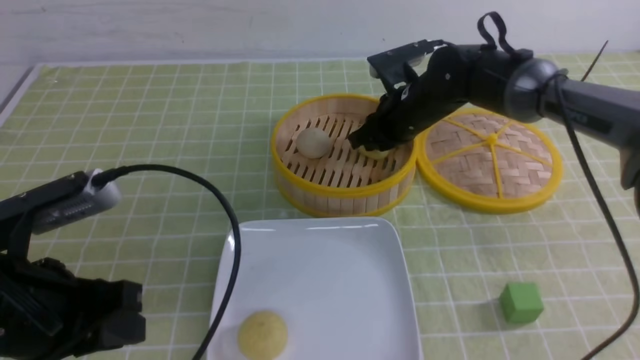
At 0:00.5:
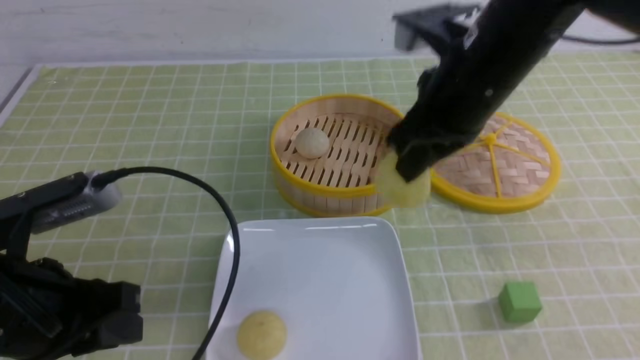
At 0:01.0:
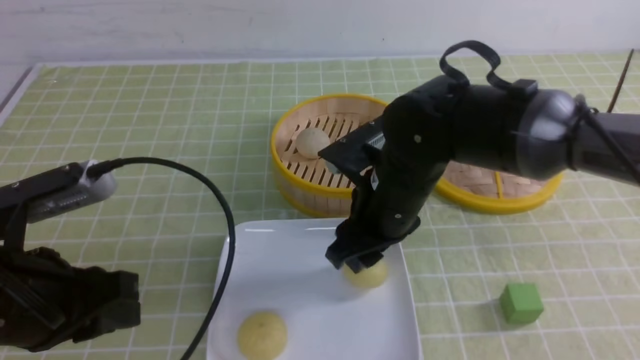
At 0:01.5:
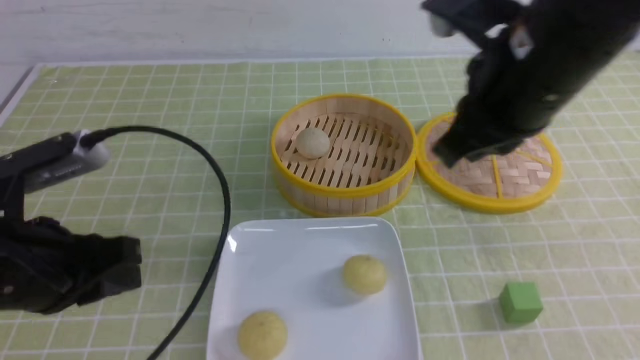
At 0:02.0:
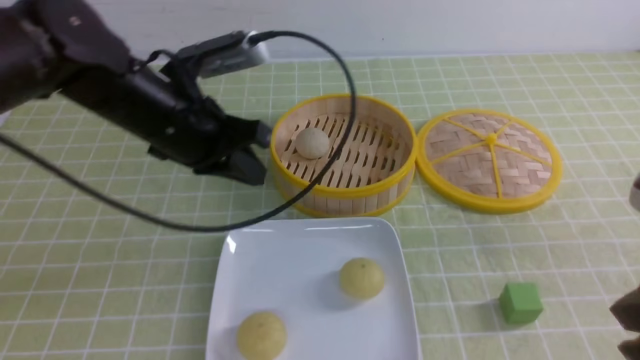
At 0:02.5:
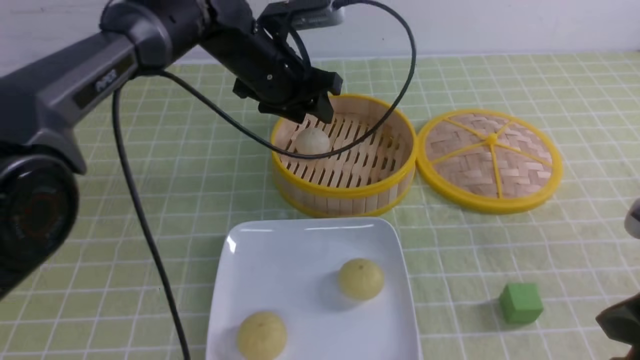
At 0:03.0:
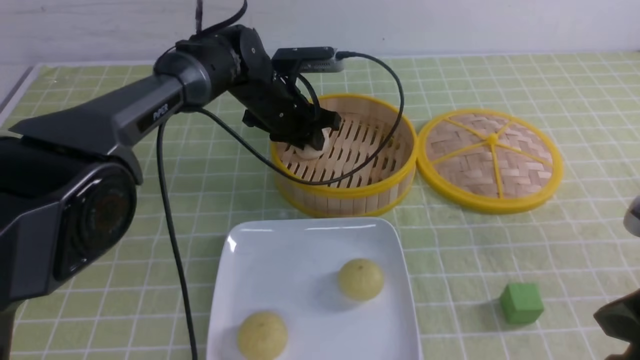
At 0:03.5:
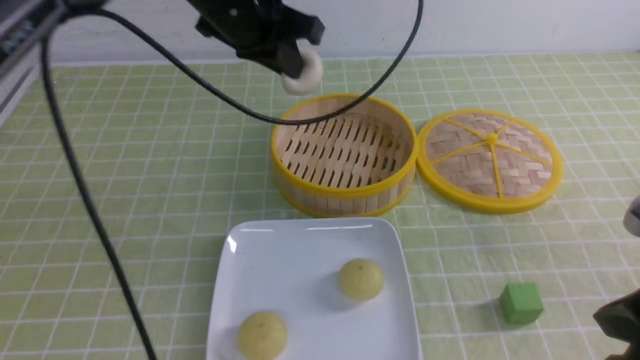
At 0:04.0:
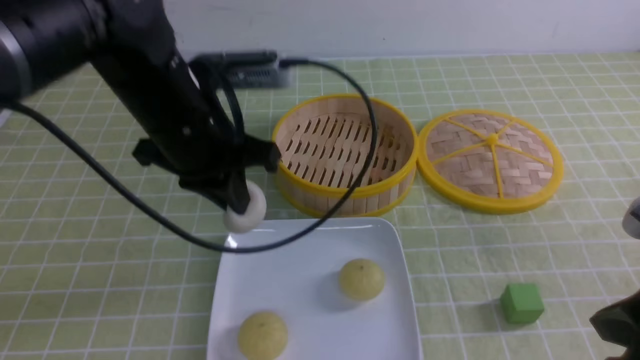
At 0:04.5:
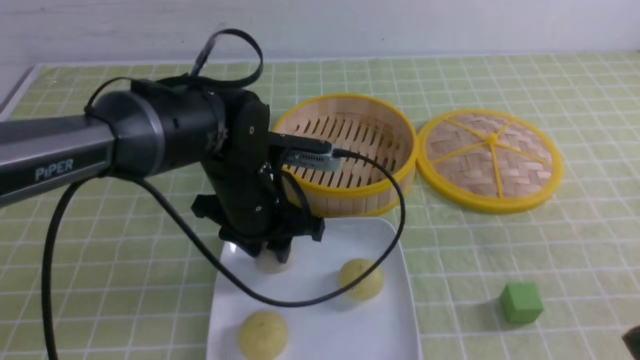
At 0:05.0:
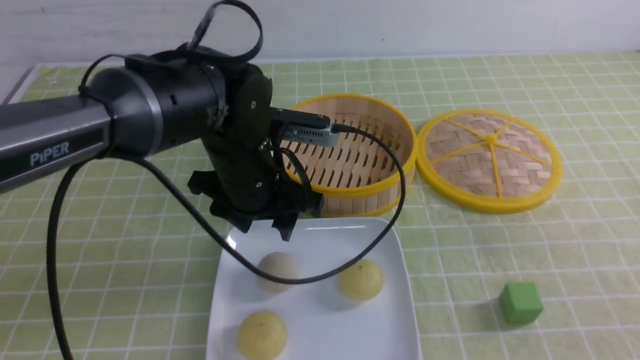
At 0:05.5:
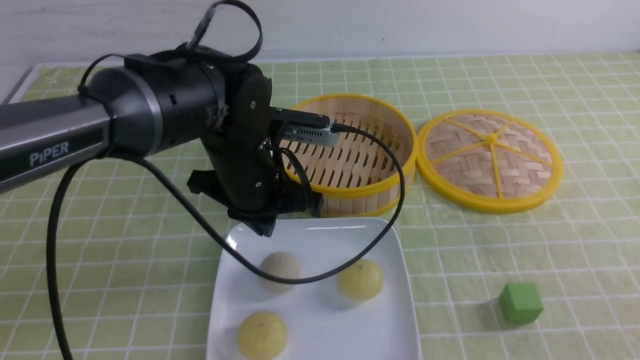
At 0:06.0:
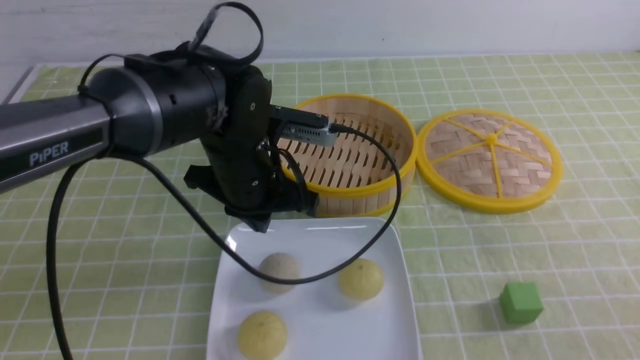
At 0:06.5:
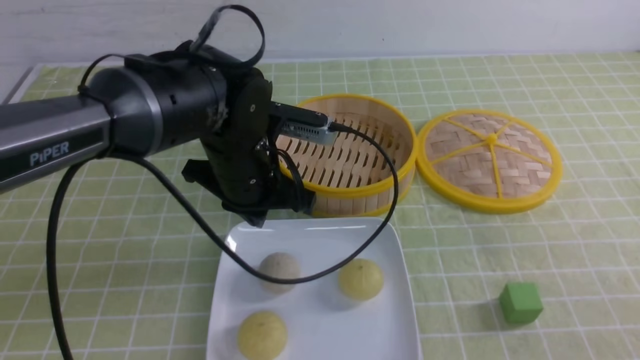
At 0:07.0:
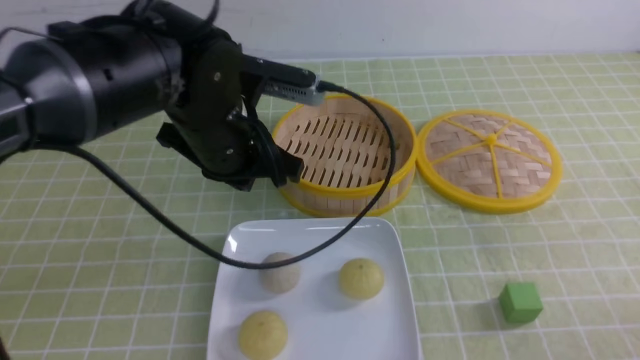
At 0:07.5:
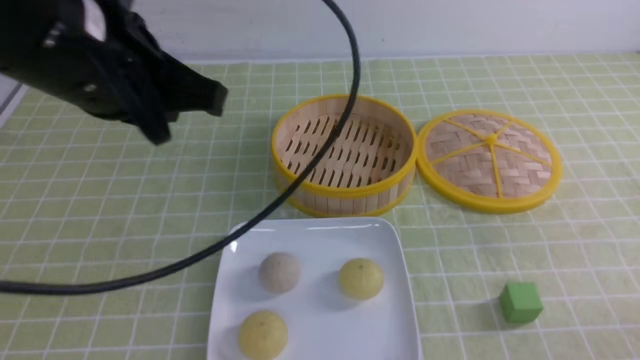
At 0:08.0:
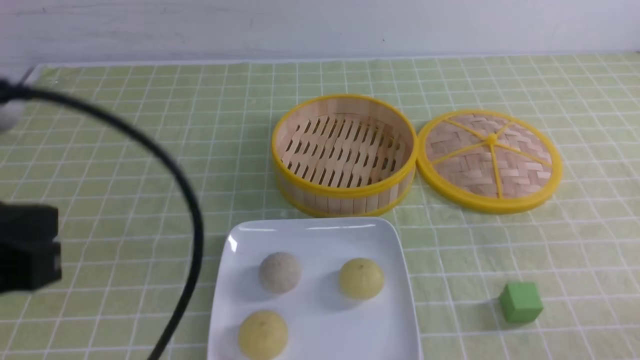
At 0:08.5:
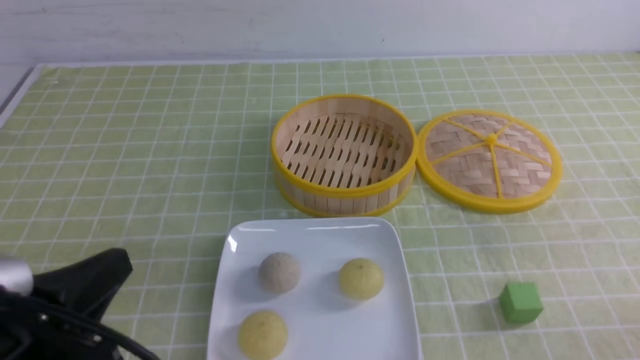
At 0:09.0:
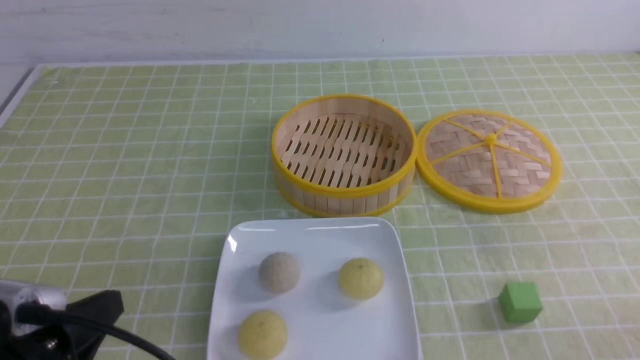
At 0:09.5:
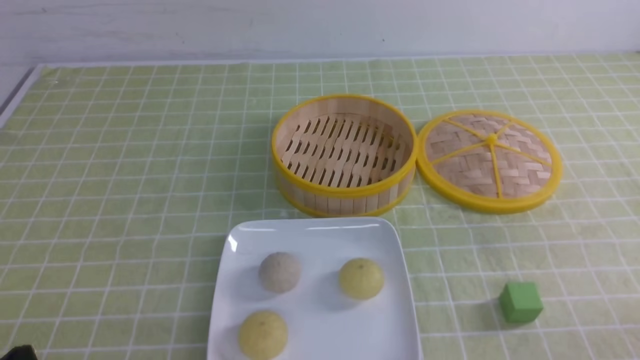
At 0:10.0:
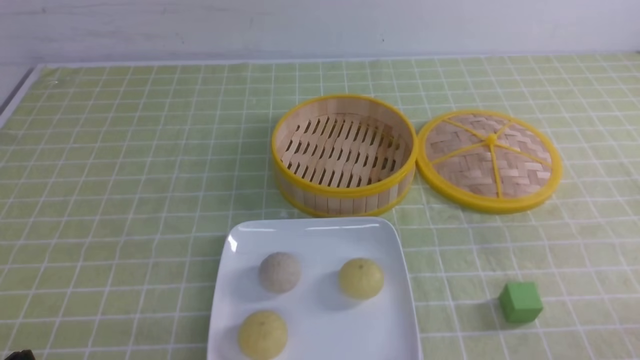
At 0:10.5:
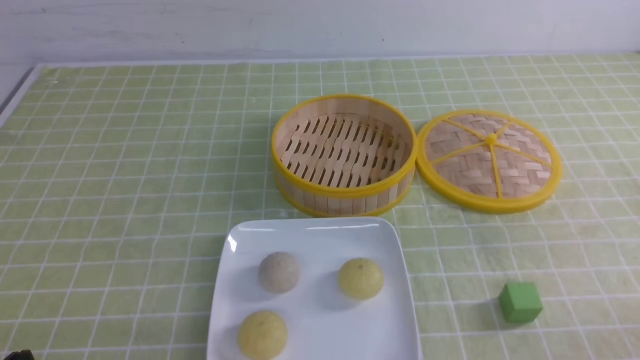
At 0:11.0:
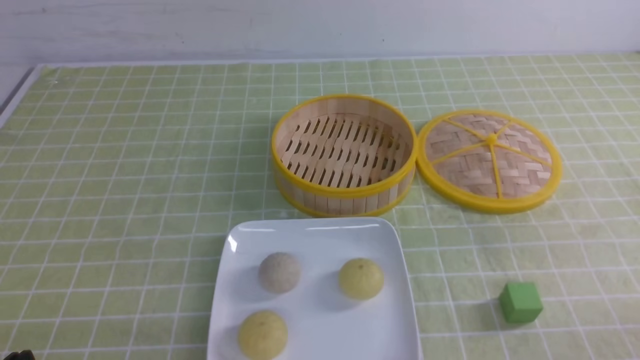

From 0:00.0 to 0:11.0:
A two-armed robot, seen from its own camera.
Step, from 0:00.5 to 0:01.0: use the right arm to put the steamed stuffed bun into the plate.
Step, from 0:01.5 to 0:03.0: use the left arm to grab the steamed stuffed bun that is closest to it.
Step, from 0:03.5 to 0:04.5: use the left arm to put the steamed stuffed bun into the plate.
From 0:00.0 to 0:02.0: The right gripper shifts about 30 cm backward, and closes up. Meanwhile the left gripper travels forward and to the right by roughly 20 cm.
From 0:02.0 to 0:03.5: The left gripper travels upward and forward by approximately 10 cm, and opens and closes again.
From 0:03.5 to 0:05.5: The left gripper shifts some 15 cm downward and backward, and opens, then closes again. Meanwhile the right gripper shifts about 10 cm backward.
From 0:05.5 to 0:07.5: The right gripper heads downward, covering about 10 cm; the left gripper moves upward, backward and to the left, some 20 cm.
From 0:07.5 to 0:09.0: The left gripper heads downward, backward and to the left, covering approximately 25 cm.
From 0:09.0 to 0:11.0: The left gripper goes about 5 cm downward.
